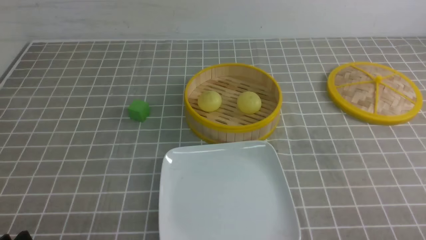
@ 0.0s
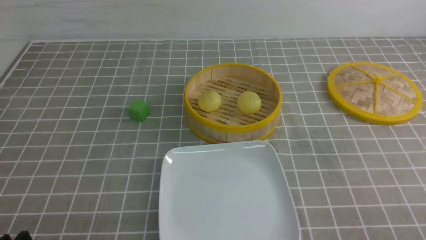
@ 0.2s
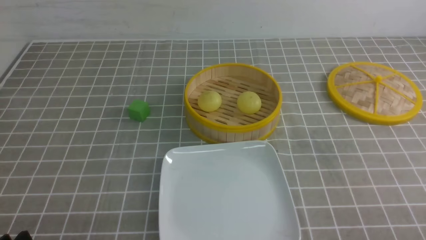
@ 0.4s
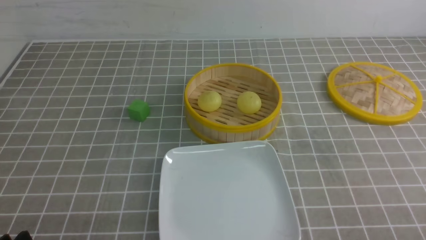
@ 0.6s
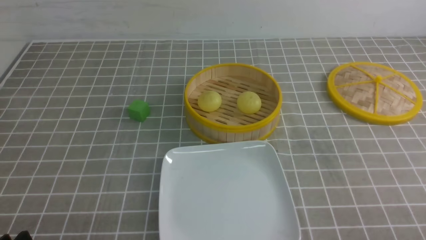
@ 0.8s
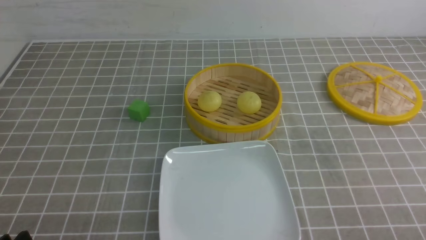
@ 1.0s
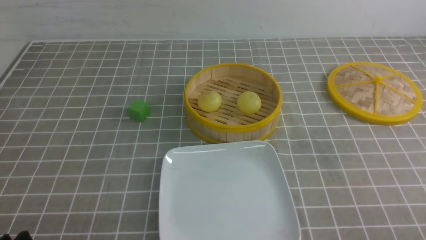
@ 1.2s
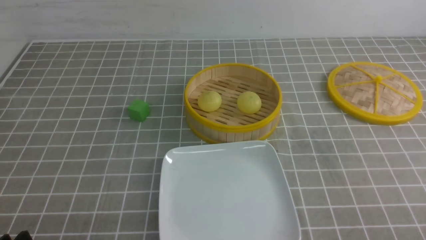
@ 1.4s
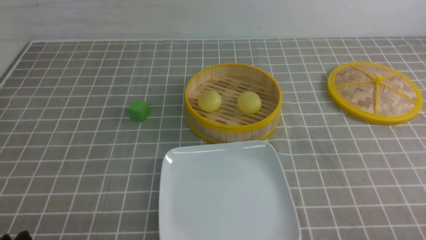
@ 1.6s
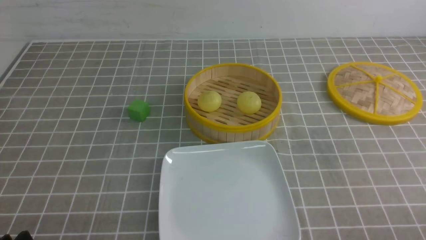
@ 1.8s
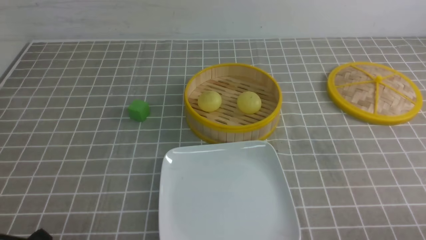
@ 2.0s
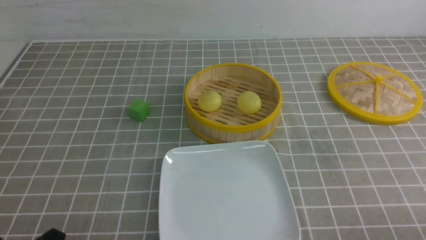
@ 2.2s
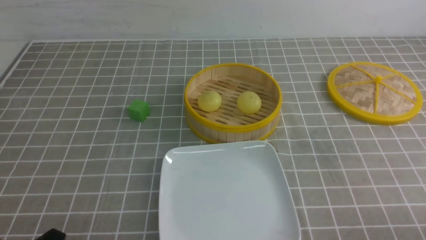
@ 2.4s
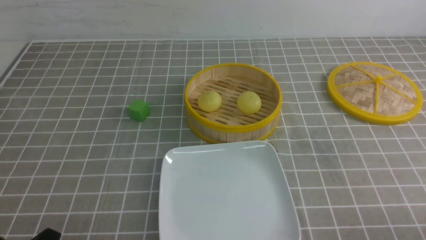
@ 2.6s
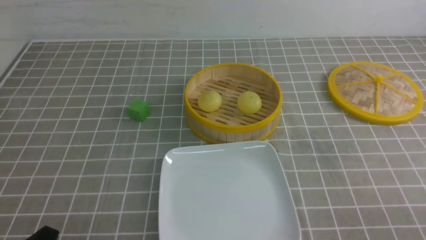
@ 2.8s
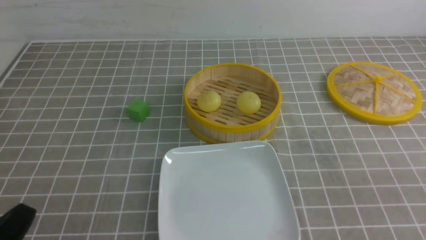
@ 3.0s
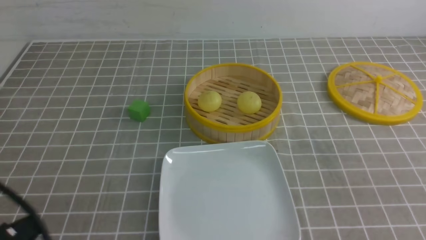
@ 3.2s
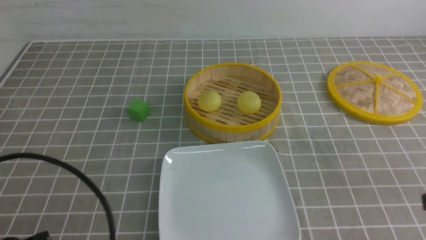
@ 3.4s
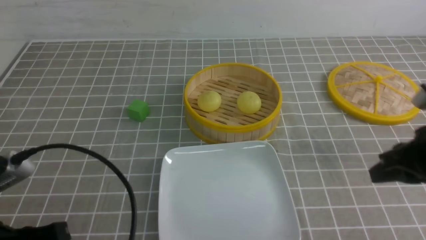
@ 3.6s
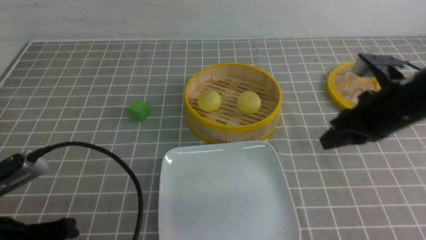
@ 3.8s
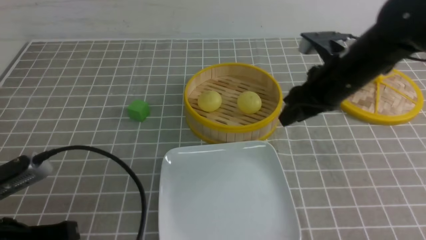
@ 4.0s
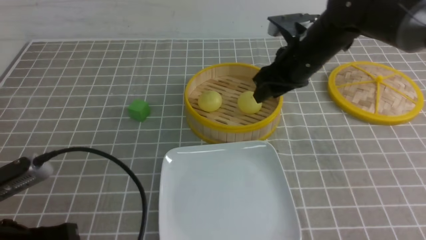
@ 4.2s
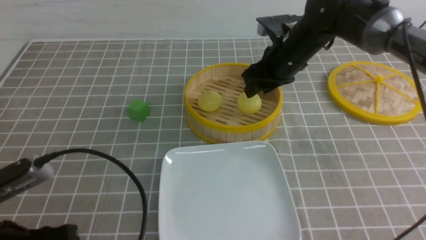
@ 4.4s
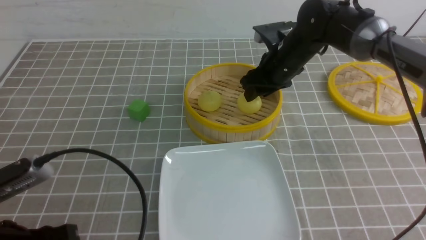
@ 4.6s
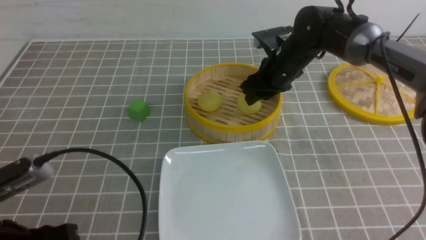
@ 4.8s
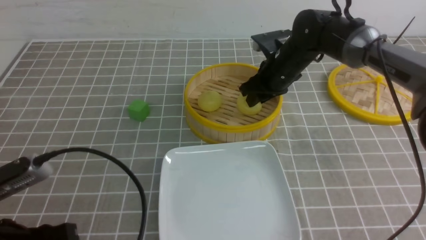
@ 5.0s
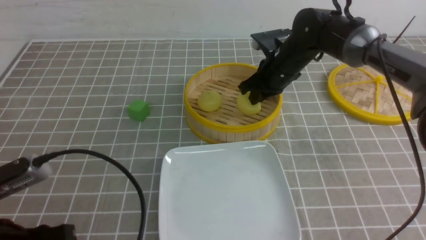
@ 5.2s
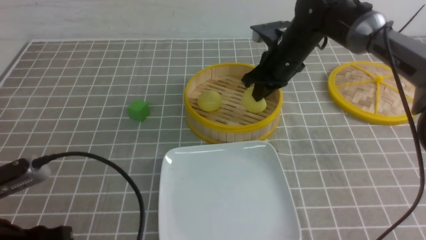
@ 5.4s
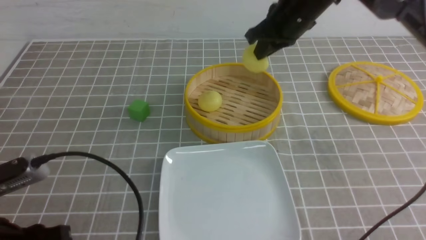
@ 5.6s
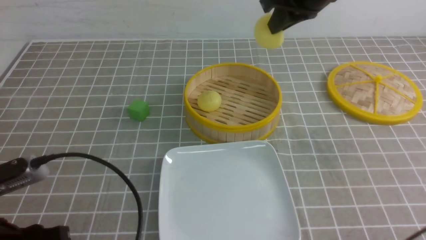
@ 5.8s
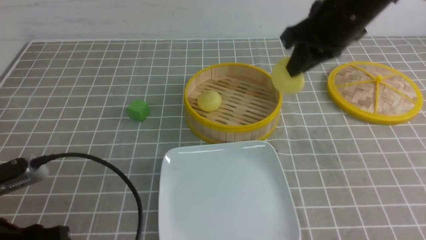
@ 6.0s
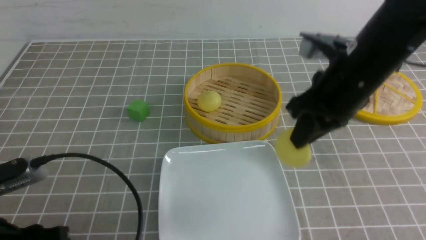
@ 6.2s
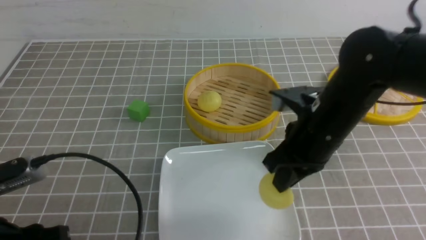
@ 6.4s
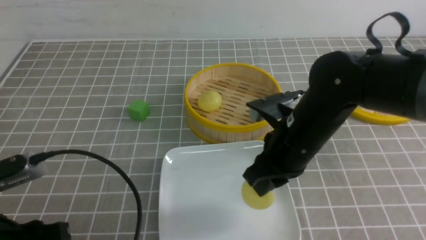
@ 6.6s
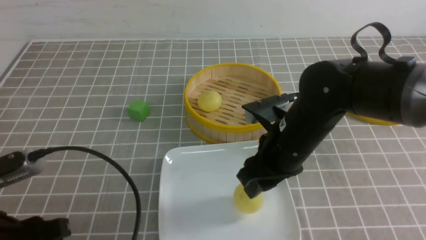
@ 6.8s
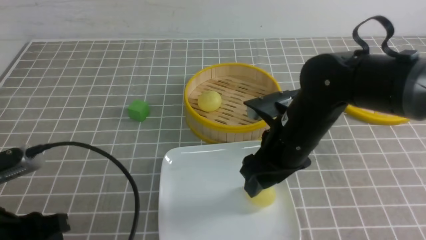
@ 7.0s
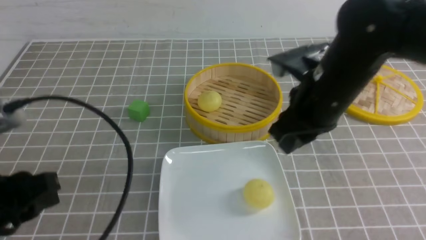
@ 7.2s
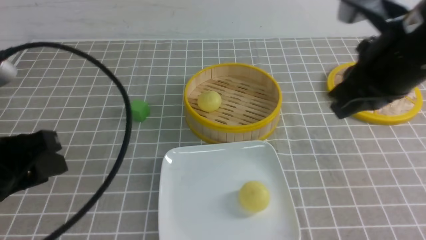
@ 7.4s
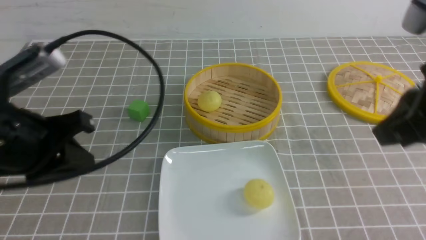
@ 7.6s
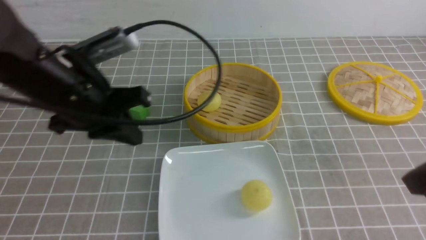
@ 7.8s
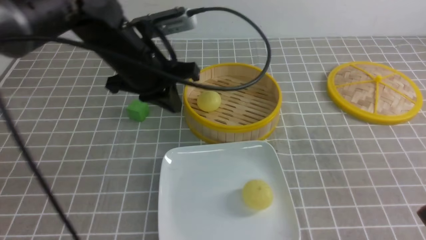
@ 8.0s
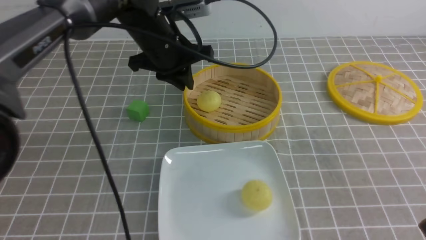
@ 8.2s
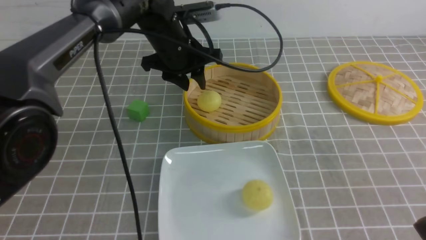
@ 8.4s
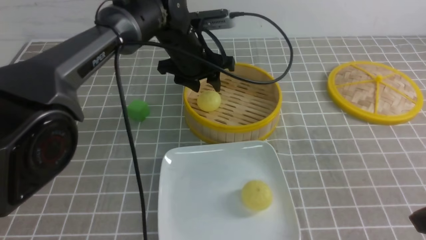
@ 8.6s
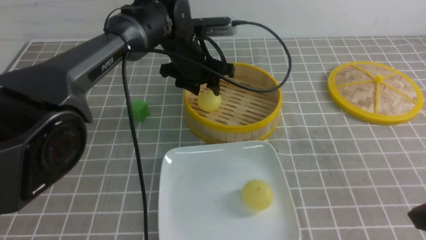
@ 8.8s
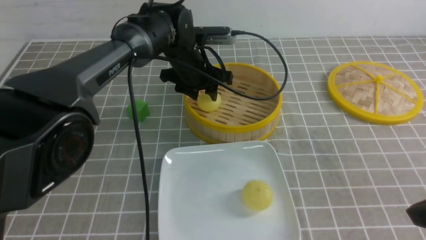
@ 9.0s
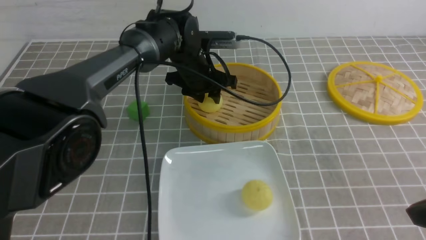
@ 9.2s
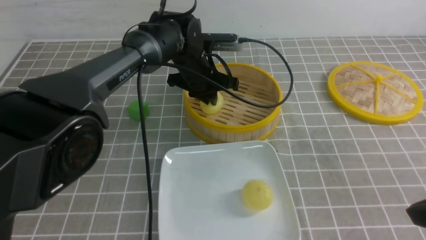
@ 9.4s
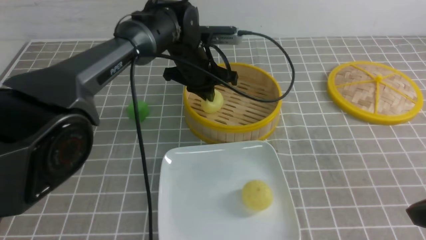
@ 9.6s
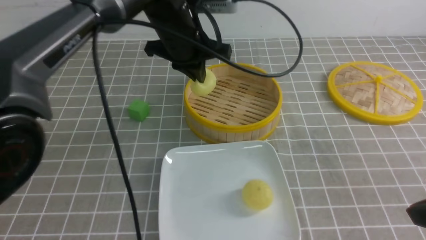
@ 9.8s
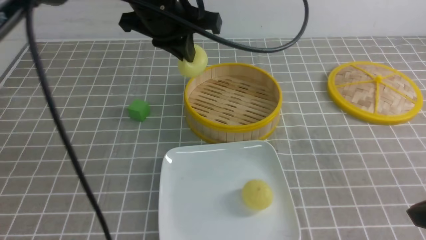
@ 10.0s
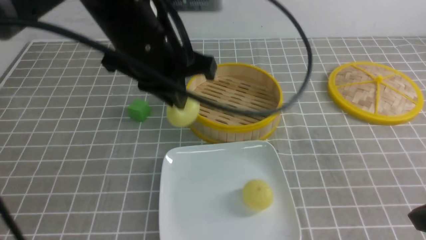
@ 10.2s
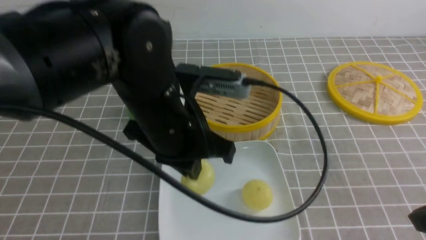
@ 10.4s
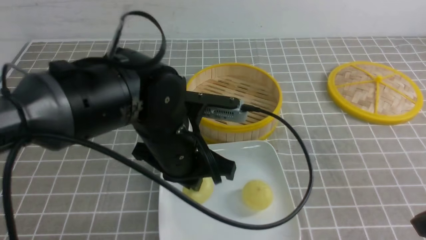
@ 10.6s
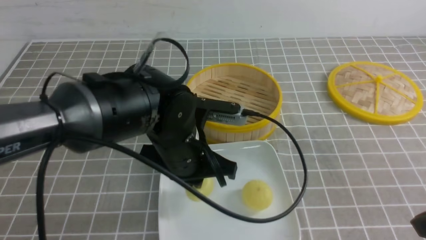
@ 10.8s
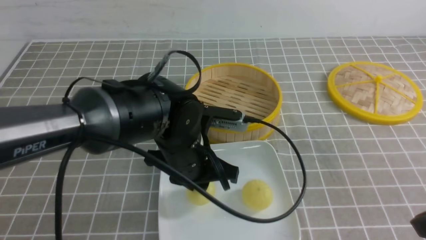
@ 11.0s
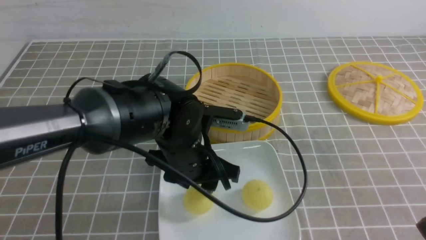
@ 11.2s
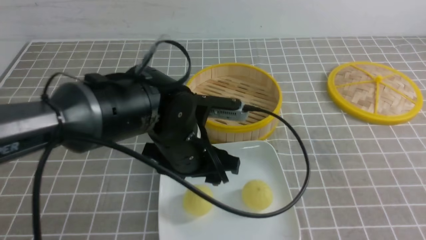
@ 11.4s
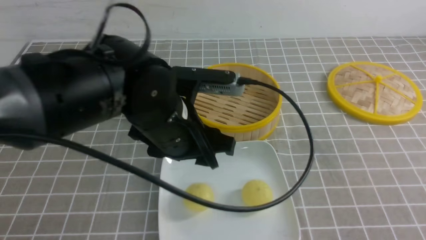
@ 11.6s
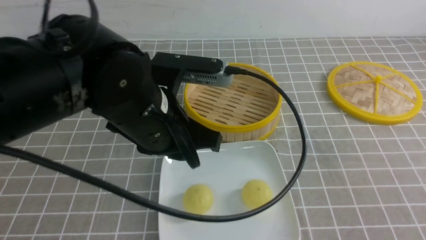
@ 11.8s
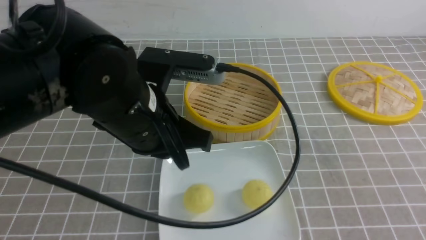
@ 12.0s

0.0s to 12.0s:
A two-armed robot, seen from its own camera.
Step, 0.0s to 5.2s: use the right arm to grab the steamed stuffed bun that is closest to it.
Step, 5.6s to 6.6s: use the right arm to put the steamed stuffed bun into the plate.
Step, 6.8s to 9.6s: use the left arm to grab the steamed stuffed bun that is closest to it.
Step, 9.8s to 11.2s: use the left arm to put the steamed stuffed bun into the plate.
1.6s to 3.0s: The left gripper travels upward by approximately 5 cm, and closes its fingers.
3.0s to 4.4s: The right gripper moves forward and to the left, about 40 cm, and opens its fingers, while the left gripper goes roughly 5 cm forward, and opens up.
4.4s to 6.0s: The right gripper goes roughly 15 cm upward and backward, and closes.
6.0s to 7.6s: The right gripper heads backward, covering some 15 cm, and opens, then closes again, while the left gripper is displaced forward and upward by some 15 cm, and closes its fingers.
7.6s to 9.0s: The left gripper shifts roughly 30 cm forward, to the right and downward, and opens its fingers. The right gripper goes some 10 cm downward and backward.
9.0s to 10.4s: The left gripper is displaced backward by about 20 cm, and closes.
10.4s to 12.0s: The left gripper moves some 10 cm downward and comes back, and opens, then closes once more. Meanwhile the right gripper goes about 5 cm backward.

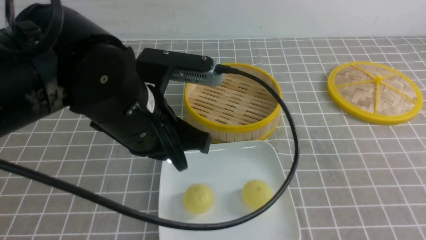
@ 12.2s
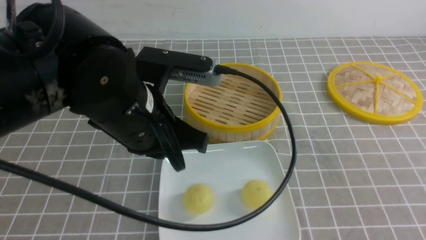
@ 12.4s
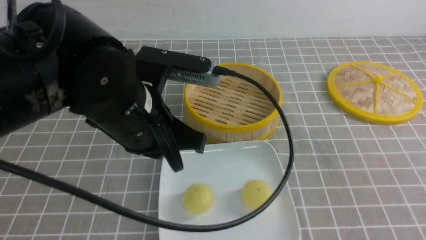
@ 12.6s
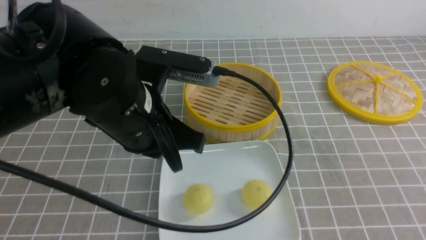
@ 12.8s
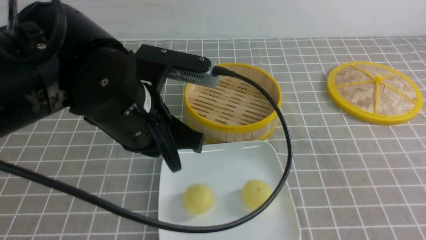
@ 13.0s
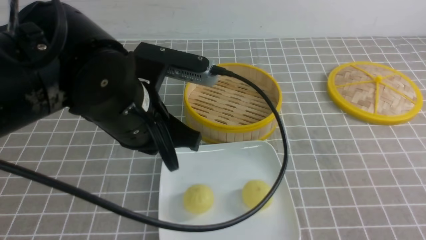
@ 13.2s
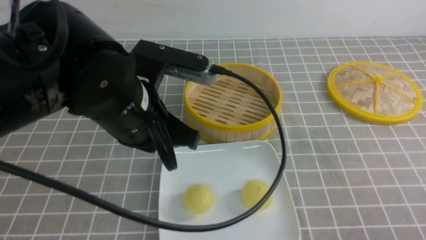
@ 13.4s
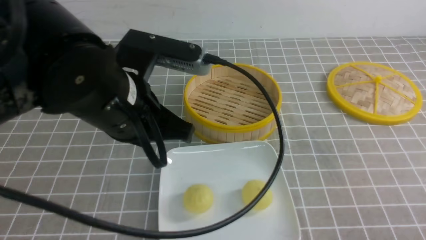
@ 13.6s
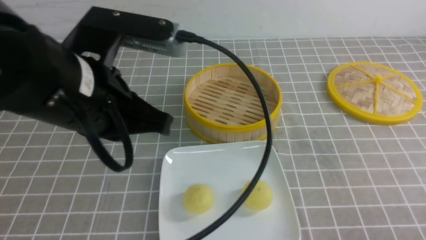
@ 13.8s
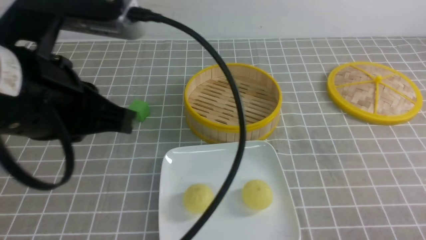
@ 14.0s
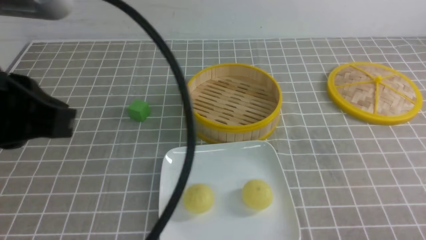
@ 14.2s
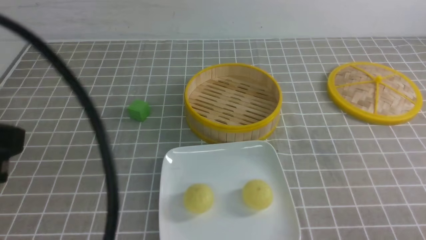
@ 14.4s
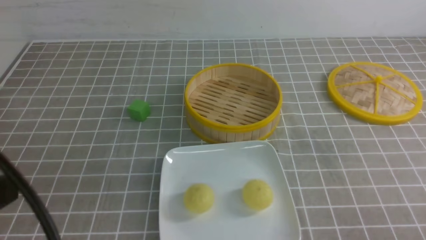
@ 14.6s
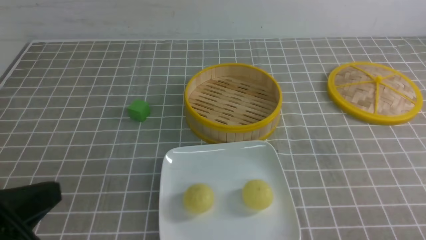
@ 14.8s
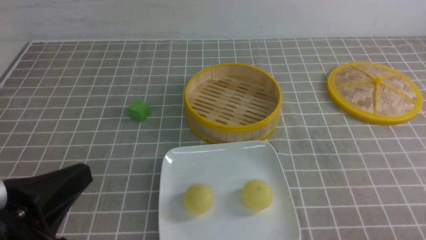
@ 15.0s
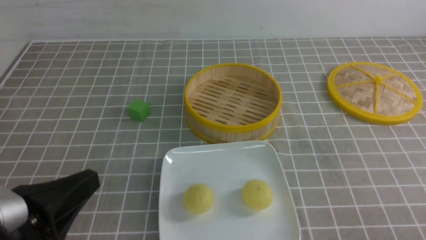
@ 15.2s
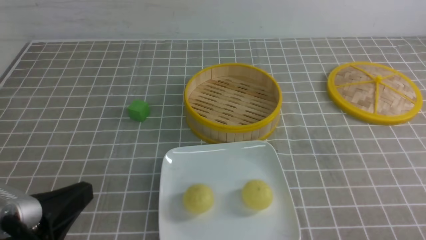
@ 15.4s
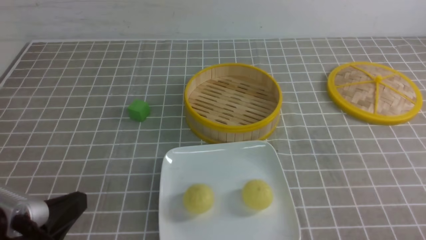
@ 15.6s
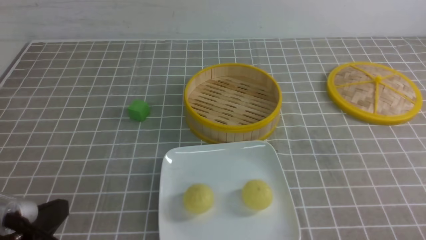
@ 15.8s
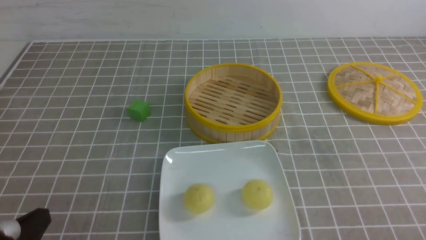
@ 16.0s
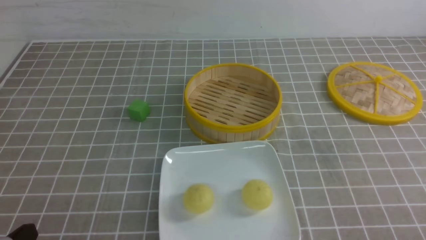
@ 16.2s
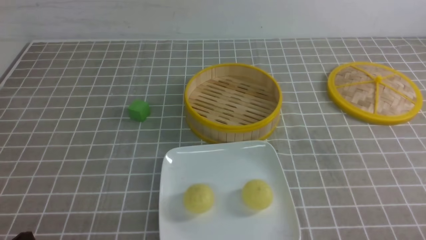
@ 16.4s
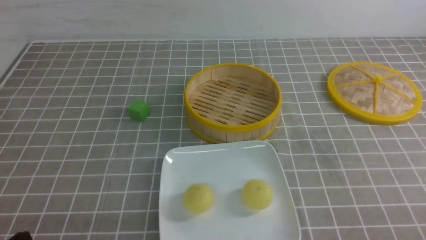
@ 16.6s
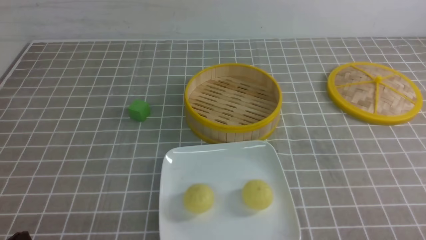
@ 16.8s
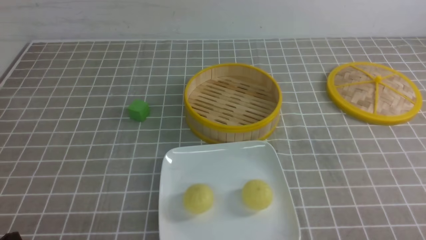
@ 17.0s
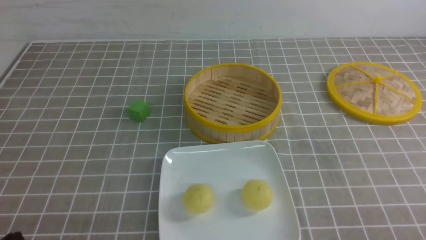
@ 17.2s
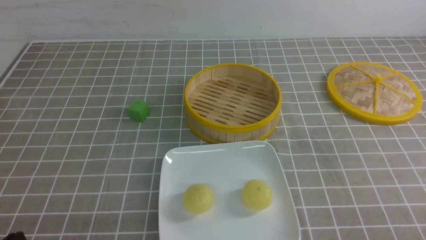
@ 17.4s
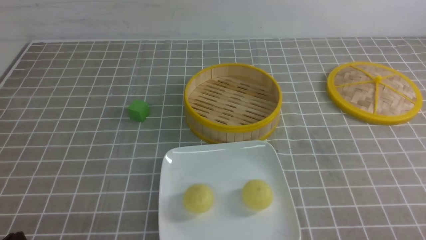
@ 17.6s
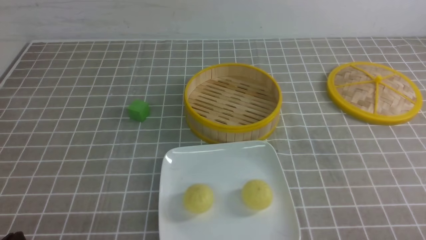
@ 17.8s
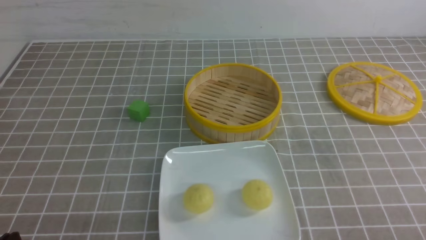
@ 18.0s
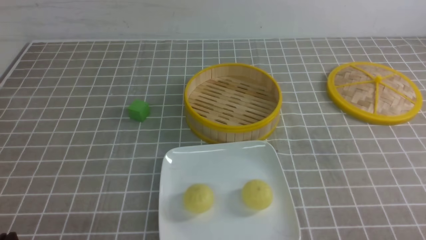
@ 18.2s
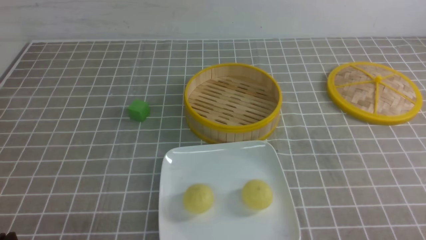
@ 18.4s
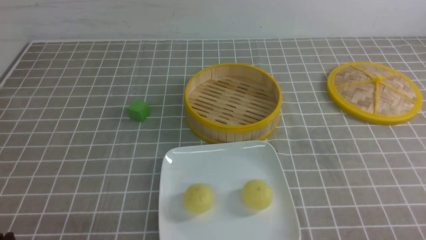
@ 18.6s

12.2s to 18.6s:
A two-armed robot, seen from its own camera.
12.2s to 13.8s: The left gripper heads upward, covering about 5 cm. The right gripper goes roughly 15 cm downward.
13.8s to 15.4s: The left gripper goes roughly 15 cm backward, downward and to the left.
15.4s to 17.0s: The left gripper moves downward and to the left, approximately 10 cm.
